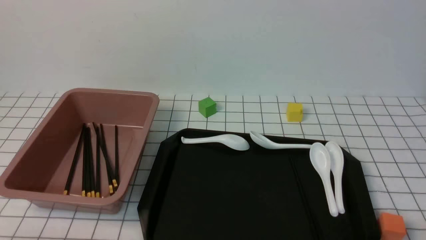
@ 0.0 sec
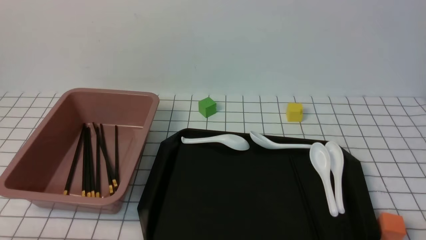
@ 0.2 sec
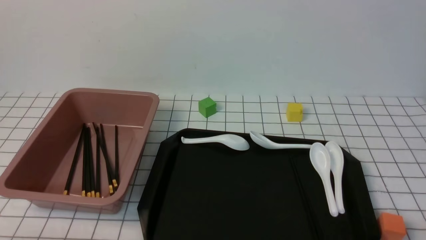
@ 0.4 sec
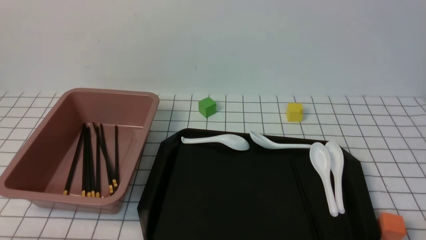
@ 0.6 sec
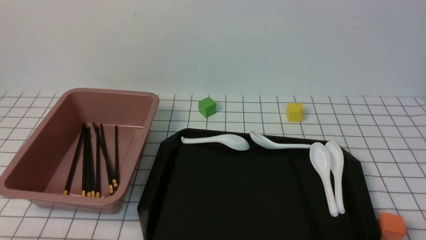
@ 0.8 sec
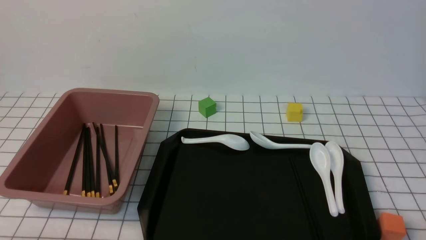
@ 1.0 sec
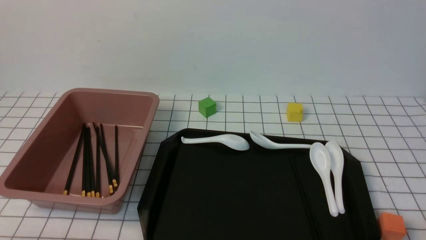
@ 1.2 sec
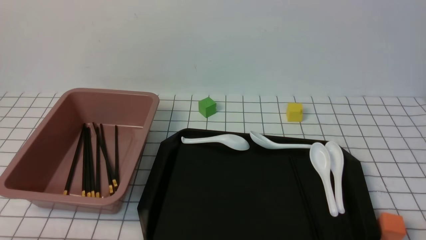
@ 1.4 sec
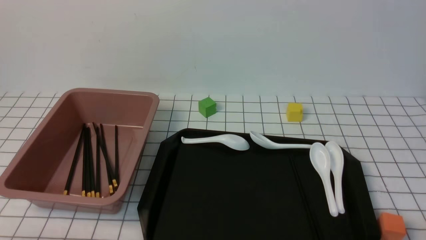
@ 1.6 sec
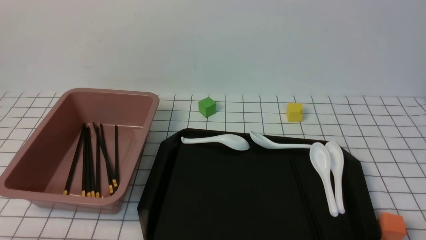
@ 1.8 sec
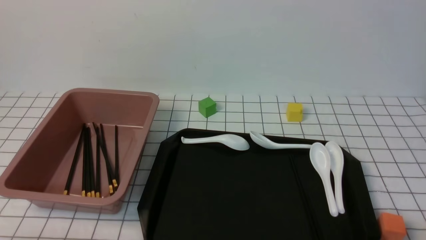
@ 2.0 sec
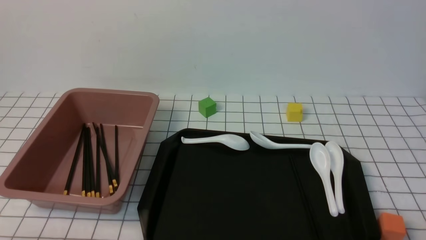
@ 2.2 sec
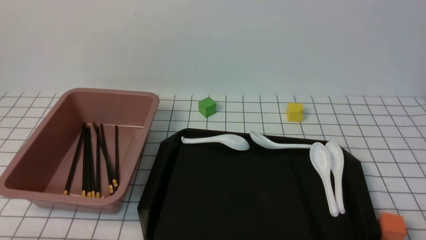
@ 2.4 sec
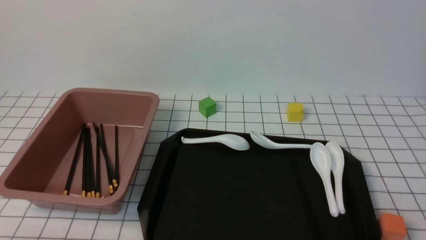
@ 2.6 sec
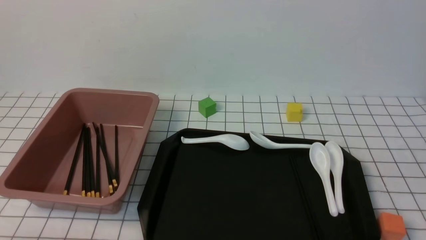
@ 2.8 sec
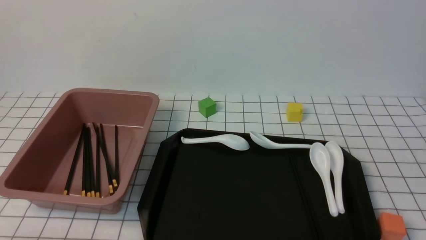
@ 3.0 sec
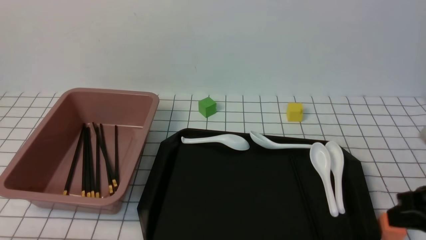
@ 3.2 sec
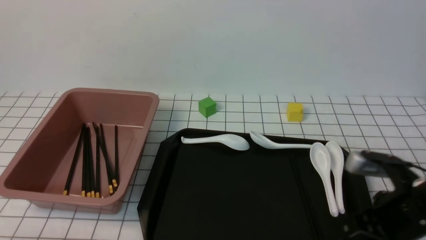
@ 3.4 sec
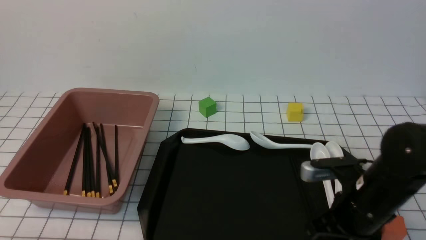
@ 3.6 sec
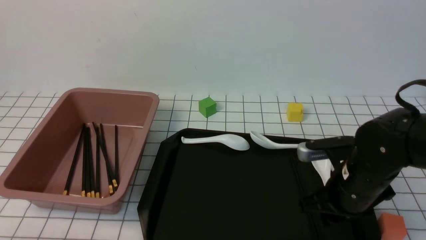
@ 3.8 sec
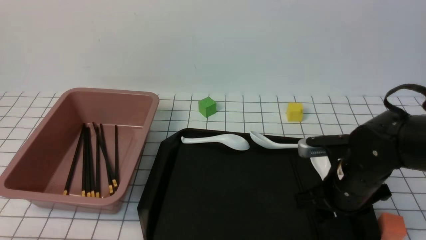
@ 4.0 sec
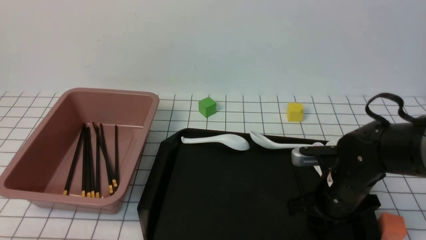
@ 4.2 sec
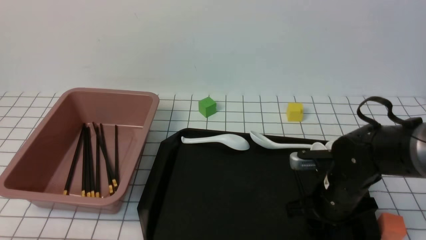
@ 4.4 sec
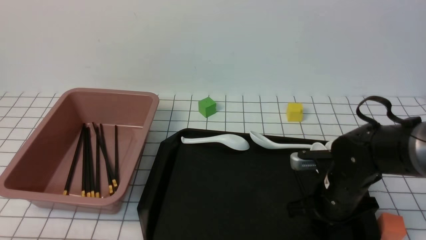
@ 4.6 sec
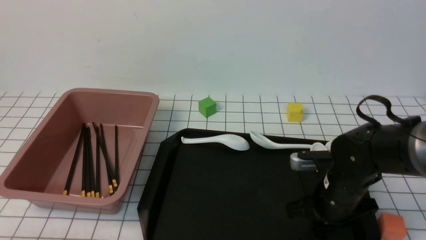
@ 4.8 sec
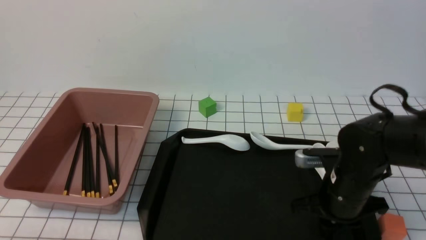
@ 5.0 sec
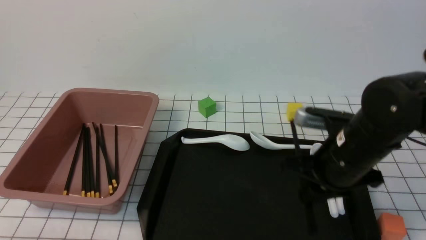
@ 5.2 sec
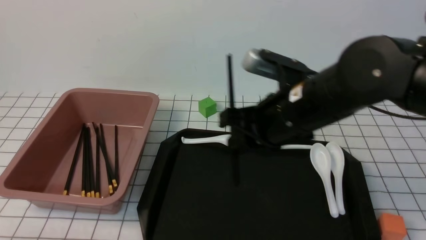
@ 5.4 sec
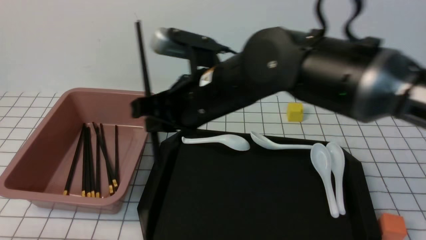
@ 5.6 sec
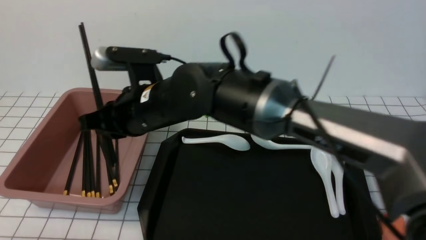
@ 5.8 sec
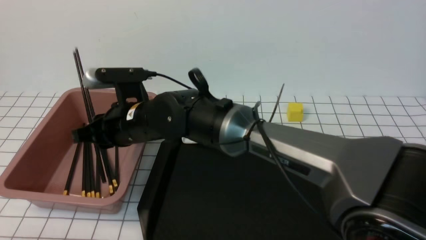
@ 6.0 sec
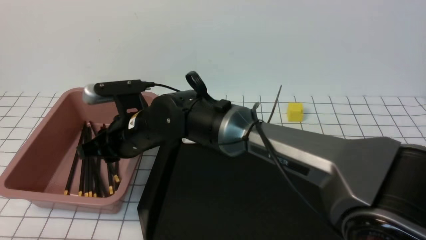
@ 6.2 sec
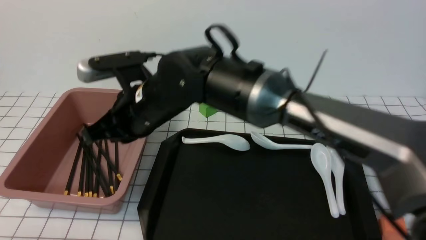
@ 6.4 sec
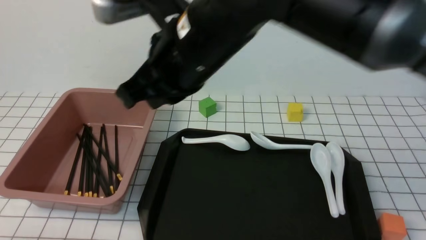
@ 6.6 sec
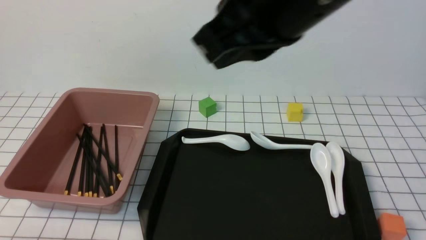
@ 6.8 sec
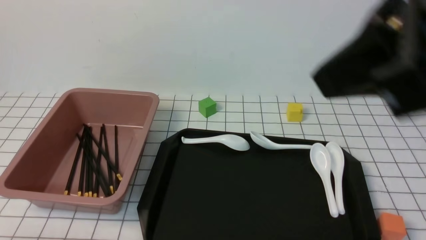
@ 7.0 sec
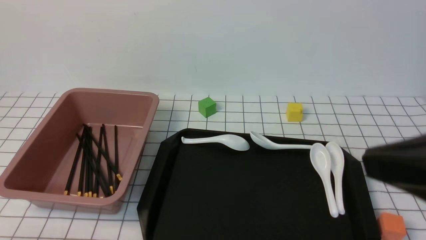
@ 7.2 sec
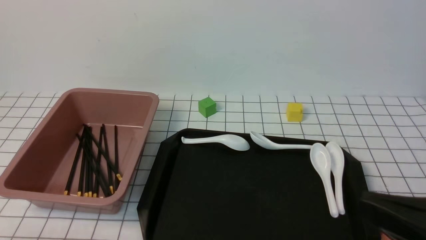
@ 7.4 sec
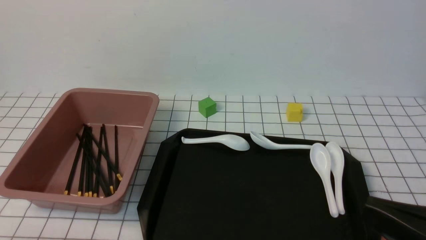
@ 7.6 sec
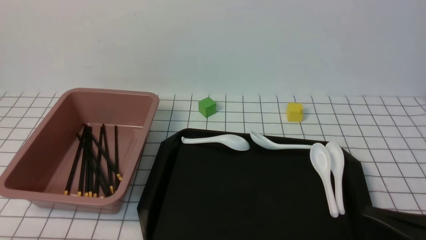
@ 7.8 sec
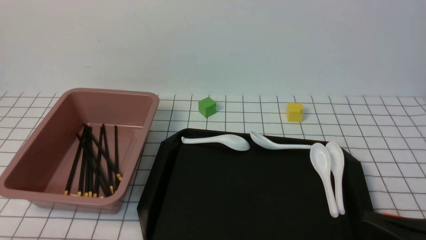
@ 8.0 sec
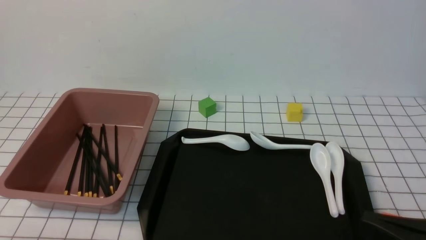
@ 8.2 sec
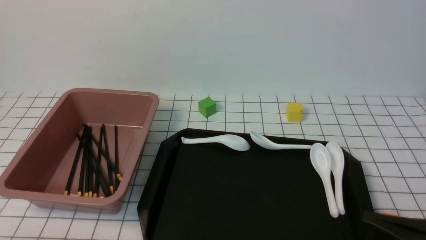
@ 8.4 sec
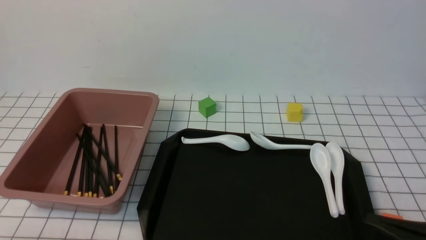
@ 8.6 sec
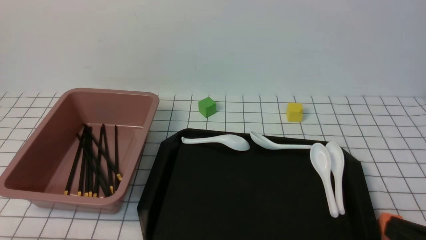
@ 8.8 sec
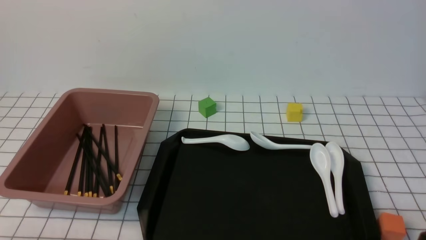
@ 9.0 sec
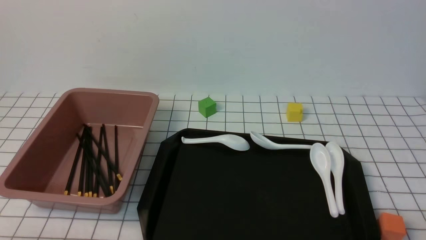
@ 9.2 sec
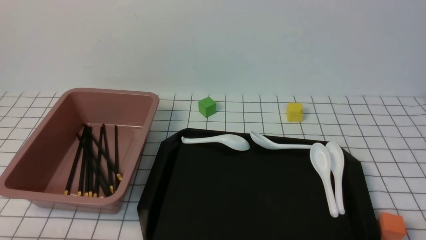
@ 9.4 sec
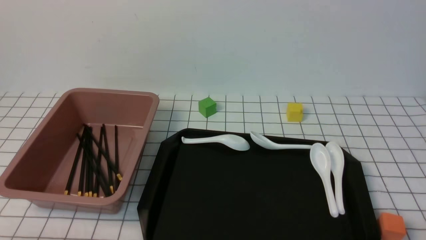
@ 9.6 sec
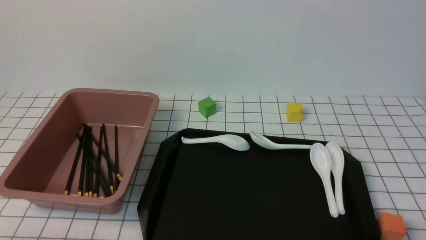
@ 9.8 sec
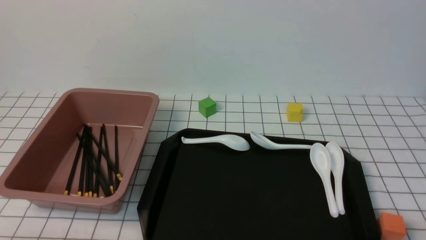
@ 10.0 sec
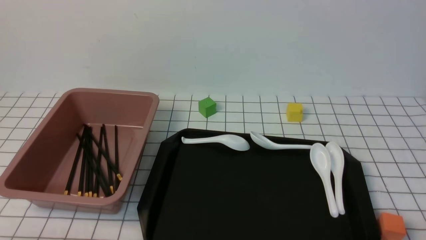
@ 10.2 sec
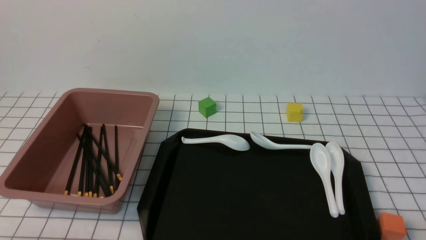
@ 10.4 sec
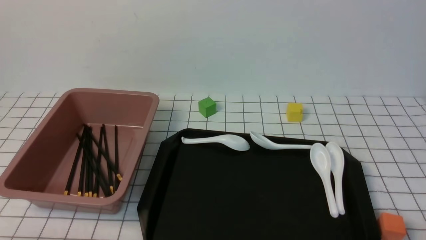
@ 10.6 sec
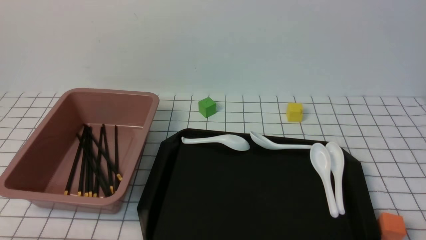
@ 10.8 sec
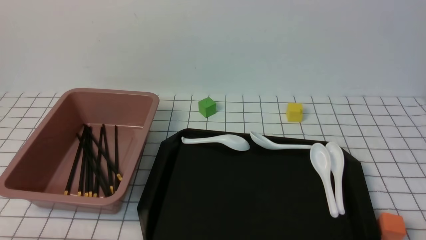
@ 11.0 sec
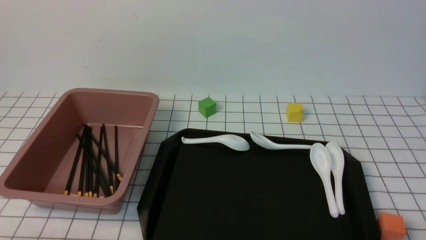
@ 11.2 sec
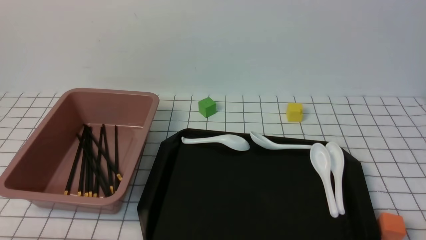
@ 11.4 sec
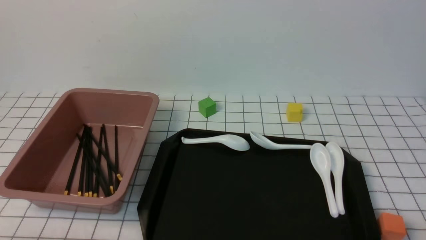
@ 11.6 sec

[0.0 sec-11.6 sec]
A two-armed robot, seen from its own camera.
Step, 0.0 sec to 5.2 sec: use the right arm to grab a pair of chopsticks.
Step, 5.4 sec to 6.4 sec: use the right arm to put the chopsticks into the lunch box.
0.0 sec to 1.4 sec: Both grippers stay put.
2.8 sec to 4.4 sec: The right gripper is displaced forward, downward and to the left by roughly 30 cm, and opens.
4.4 sec to 5.8 sec: The right gripper goes some 30 cm to the left and upward, and closes its fingers.
5.8 sec to 7.2 sec: The right gripper goes about 40 cm to the right, backward and upward, and closes up.
7.2 sec to 8.8 sec: The right gripper goes some 15 cm downward and to the right.
8.8 sec to 10.2 sec: The right gripper is displaced downward by some 5 cm.
10.2 sec to 11.6 sec: The two grippers keep their place.
